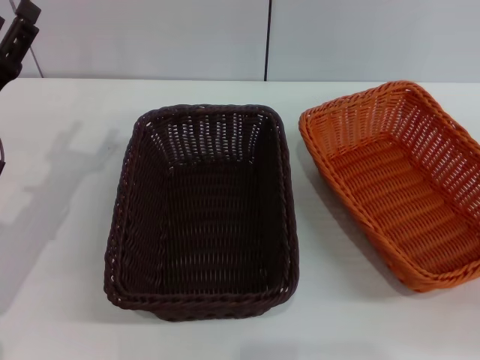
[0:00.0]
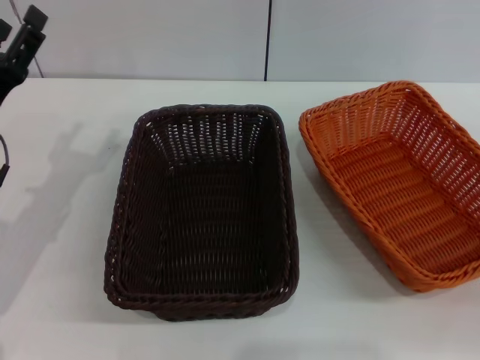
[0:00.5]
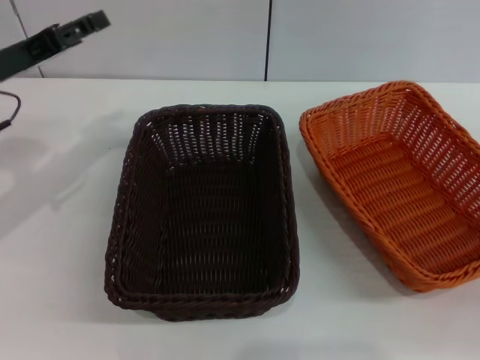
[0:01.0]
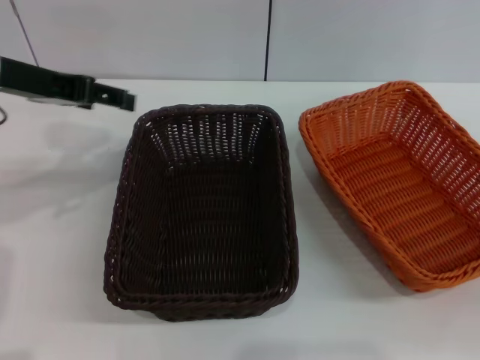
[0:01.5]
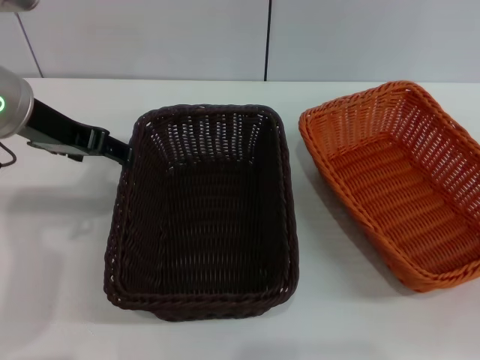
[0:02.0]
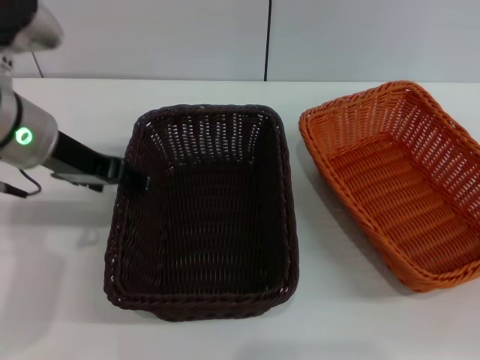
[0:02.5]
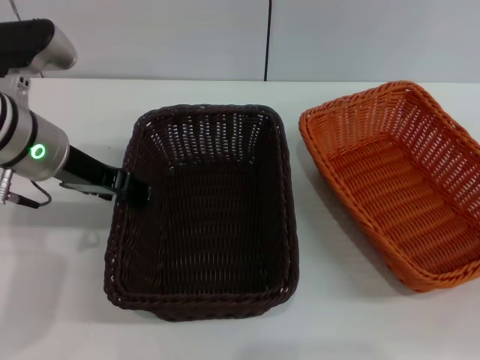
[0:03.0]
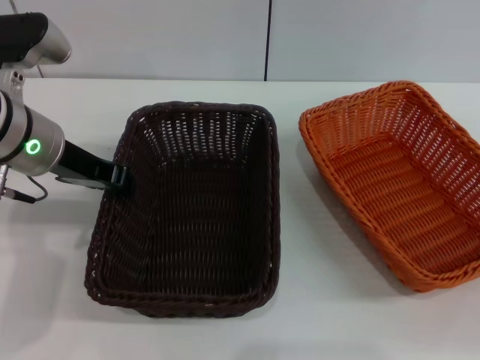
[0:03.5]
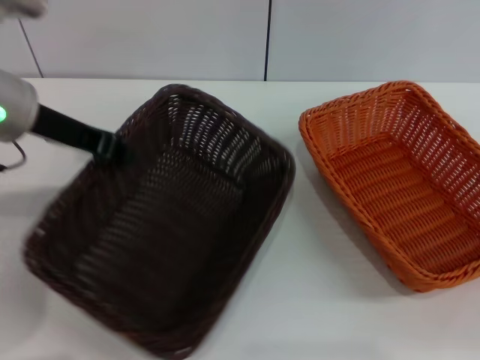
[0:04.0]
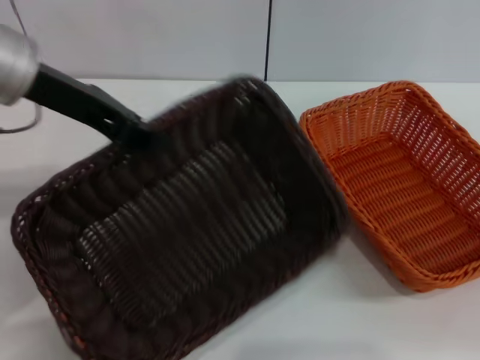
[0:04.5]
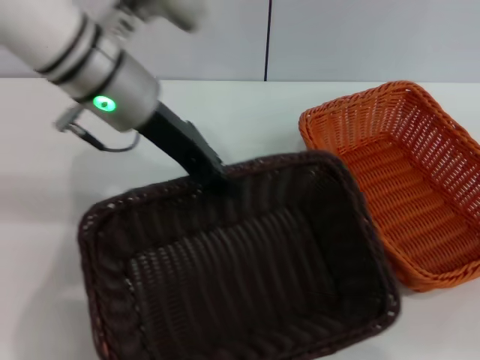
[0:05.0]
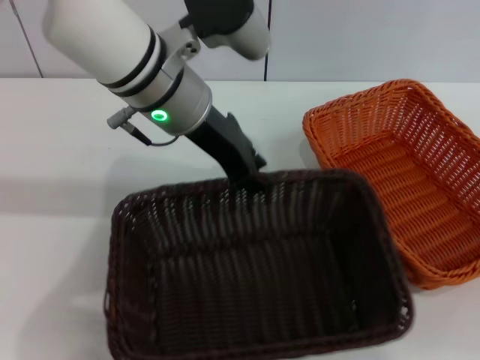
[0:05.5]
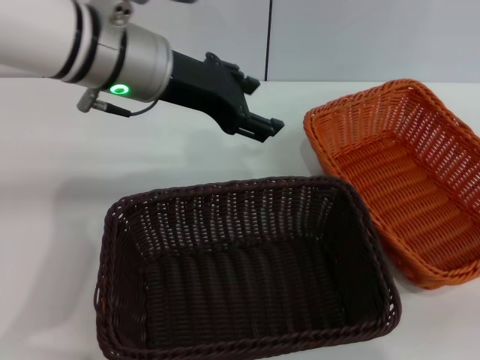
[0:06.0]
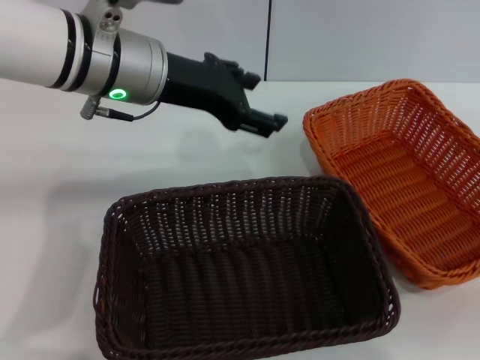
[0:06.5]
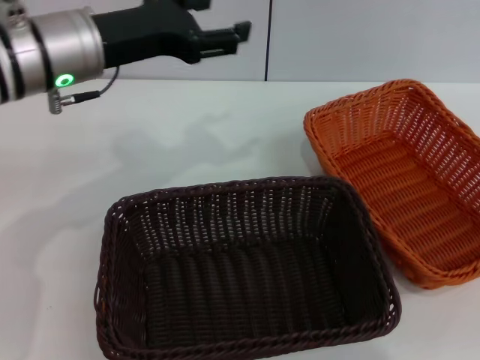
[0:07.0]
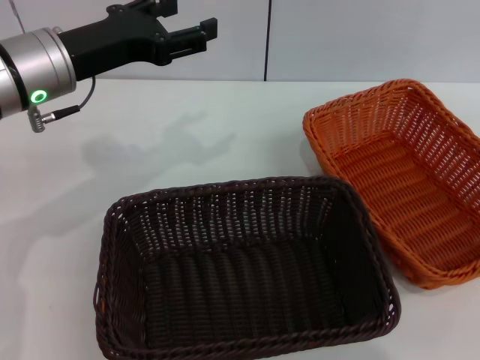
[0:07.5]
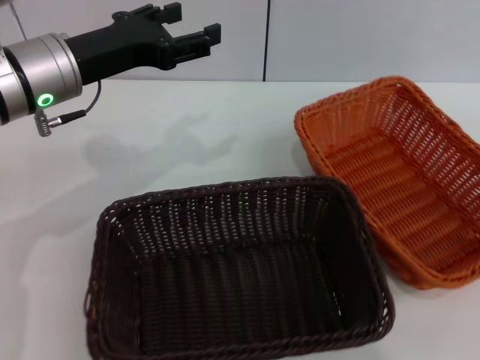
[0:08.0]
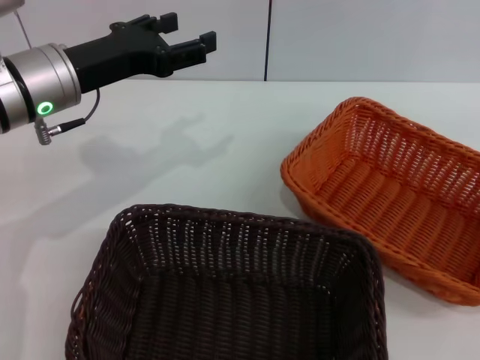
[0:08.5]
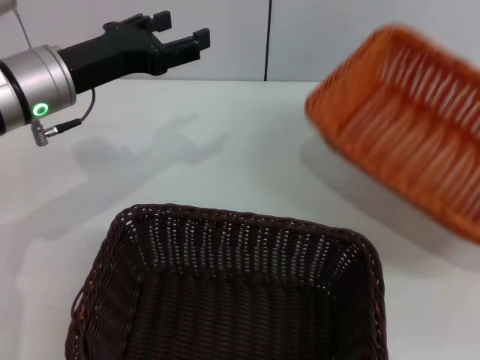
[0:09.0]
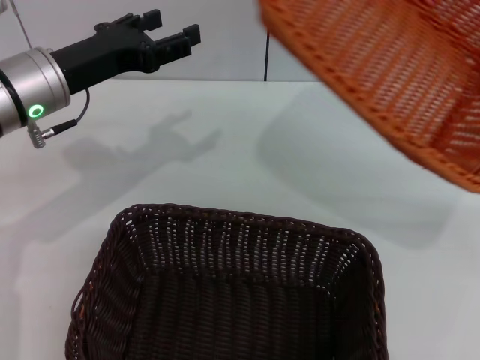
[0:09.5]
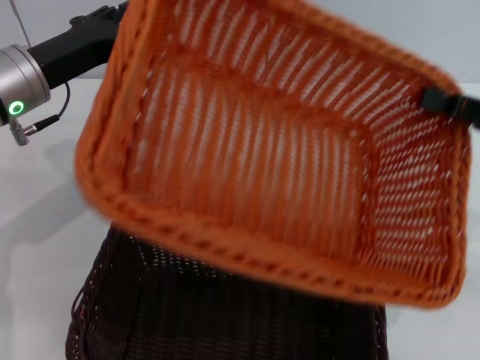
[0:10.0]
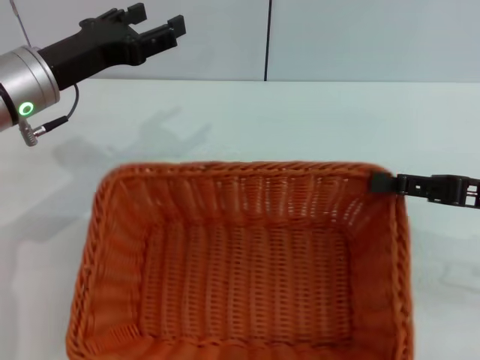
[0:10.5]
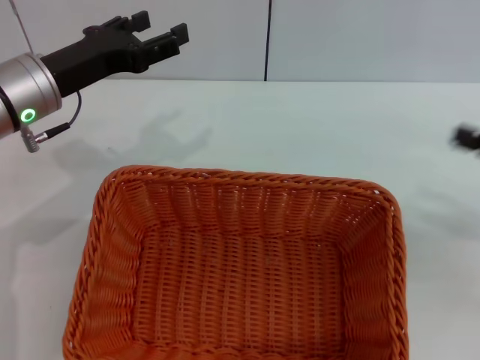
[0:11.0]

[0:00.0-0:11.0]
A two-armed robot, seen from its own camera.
Step, 0:00.0 to 0:04.0: Pick up the dark basket with the left gripper.
Step, 0:04.5 to 0:05.0: Place the dark basket in the center of view with the left gripper.
Step, 0:06.0 to 0:08.5: Pick up the light basket with the right gripper.
Step, 0:09.0 to 0:10.5: Place the light basket on the dark basket with the right gripper.
0:00.0 to 0:02.0: The left gripper moves upward and to the right, approximately 15 cm.
0:02.0 to 0:03.5: The left gripper goes some 5 cm downward, and closes up.
0:03.5 to 0:05.5: The left gripper moves to the right, roughly 15 cm.
0:05.5 to 0:07.5: The right gripper is displaced upward by some 15 cm; the left gripper moves to the left, approximately 10 cm, and opens its fingers.
0:07.5 to 0:09.0: The right gripper closes.
0:09.0 to 0:11.0: The right gripper moves to the left, approximately 10 cm, and opens up.
